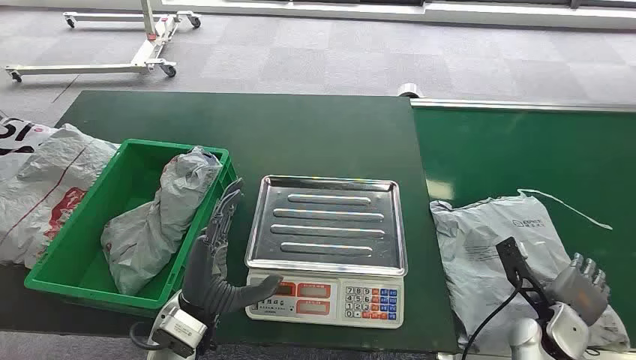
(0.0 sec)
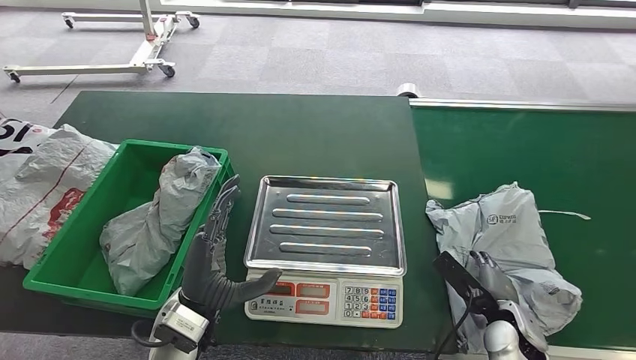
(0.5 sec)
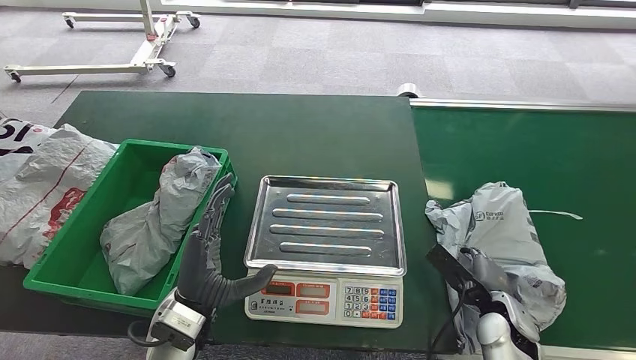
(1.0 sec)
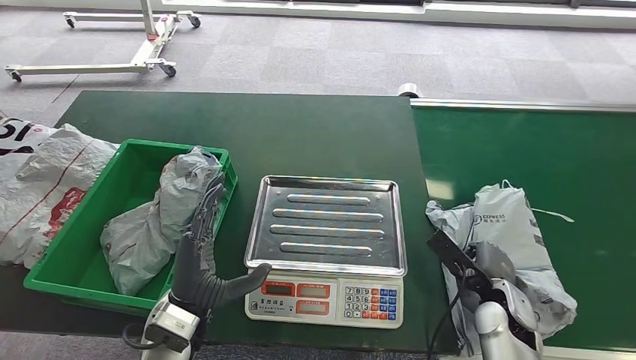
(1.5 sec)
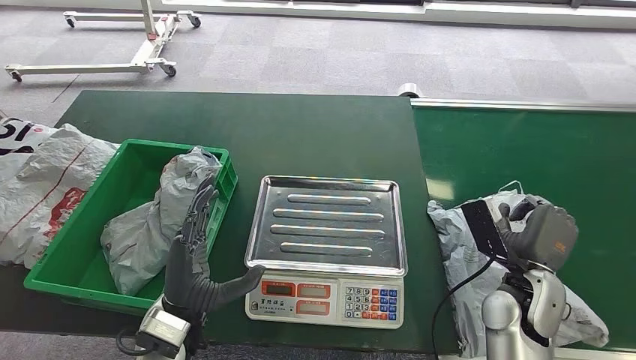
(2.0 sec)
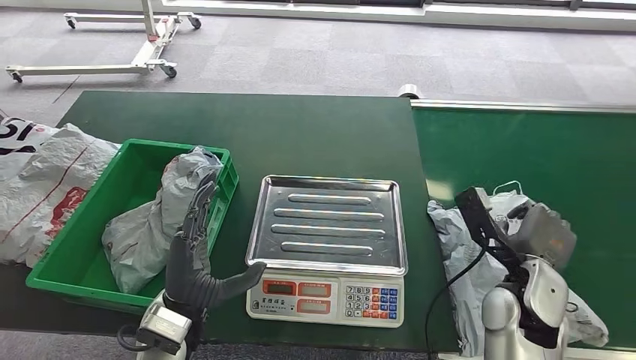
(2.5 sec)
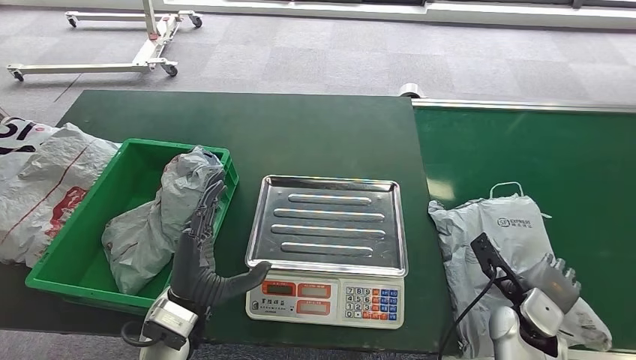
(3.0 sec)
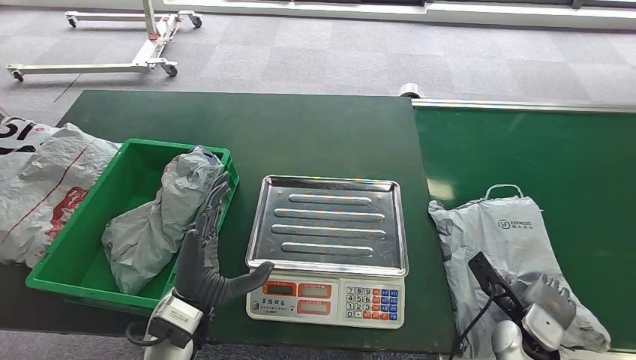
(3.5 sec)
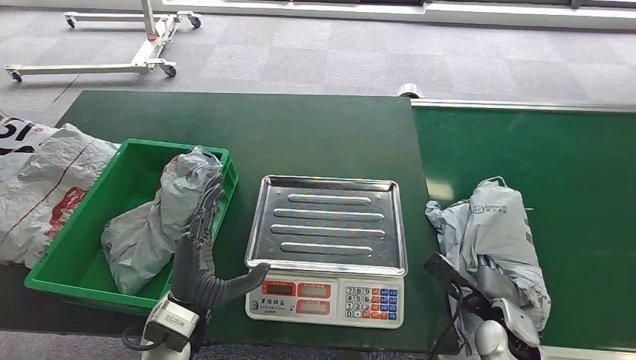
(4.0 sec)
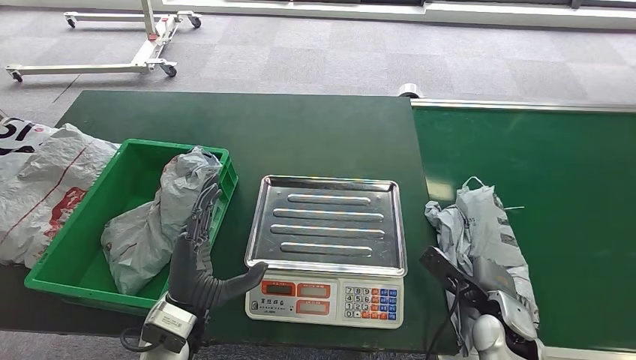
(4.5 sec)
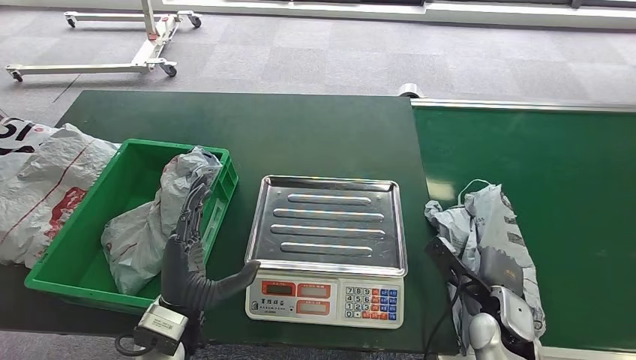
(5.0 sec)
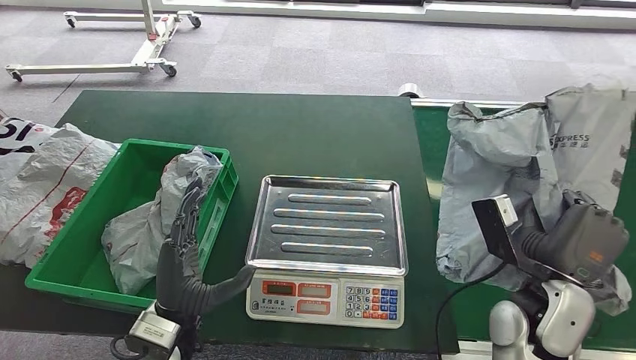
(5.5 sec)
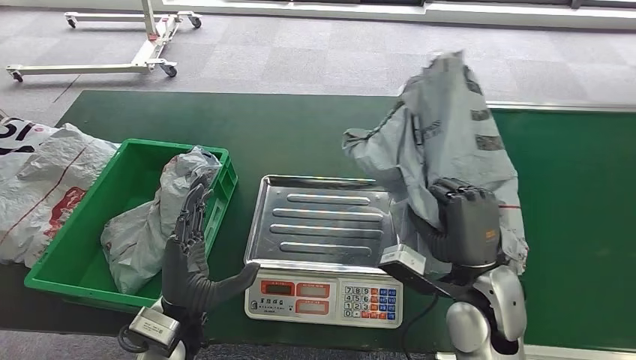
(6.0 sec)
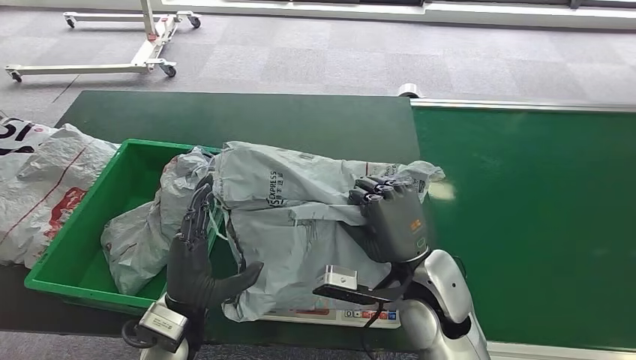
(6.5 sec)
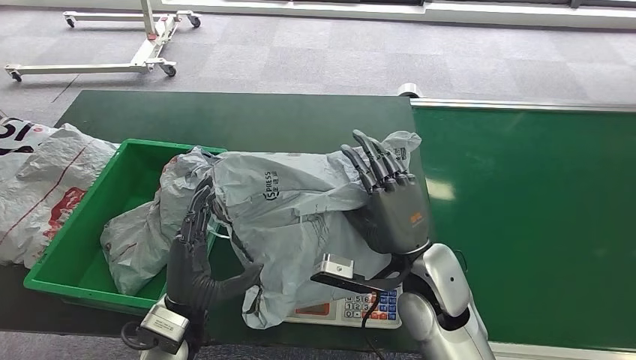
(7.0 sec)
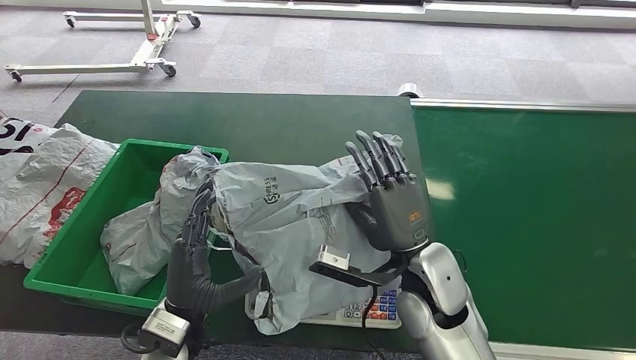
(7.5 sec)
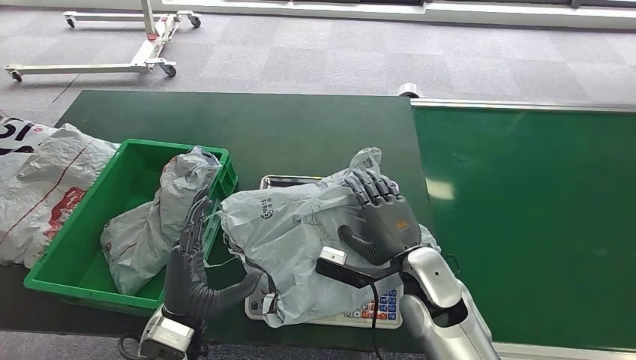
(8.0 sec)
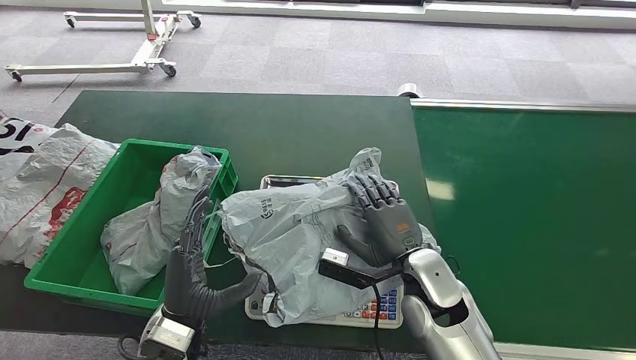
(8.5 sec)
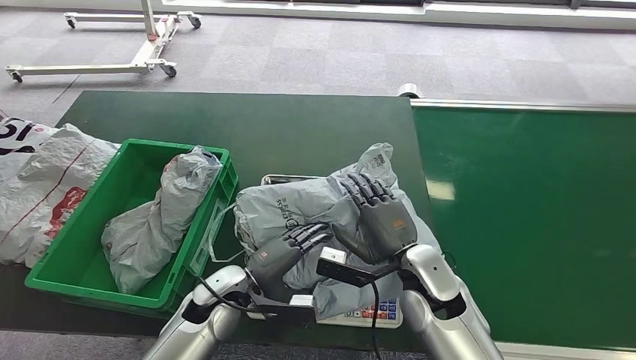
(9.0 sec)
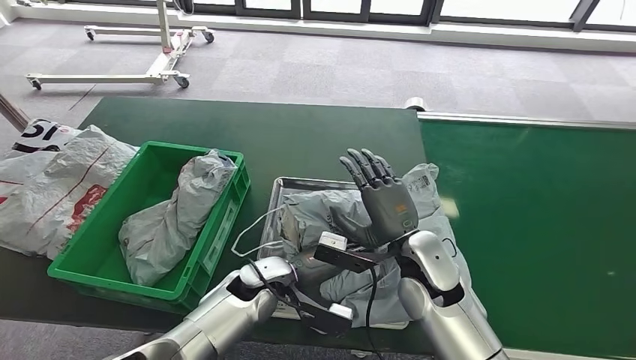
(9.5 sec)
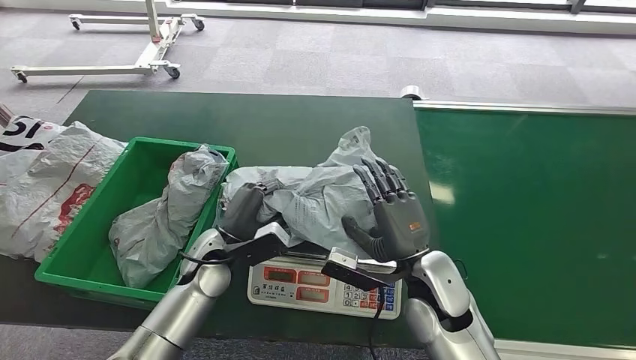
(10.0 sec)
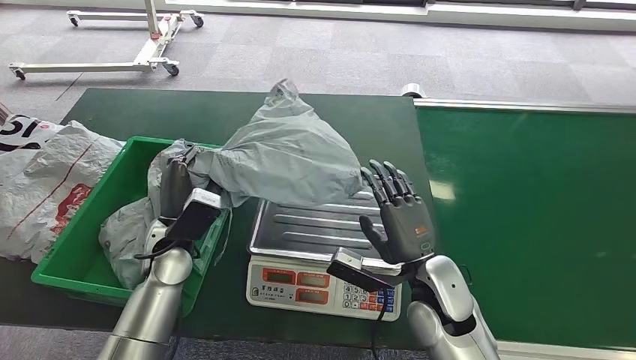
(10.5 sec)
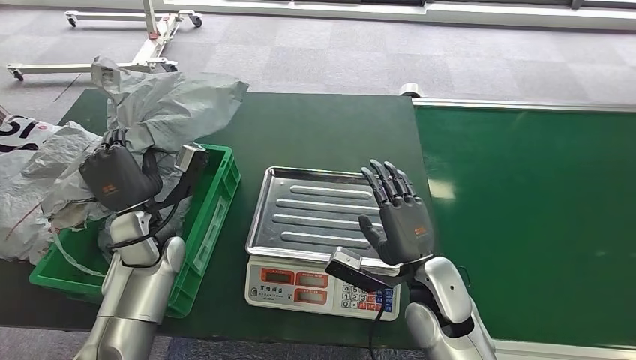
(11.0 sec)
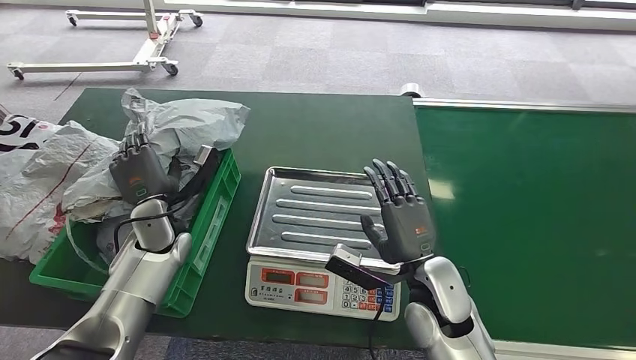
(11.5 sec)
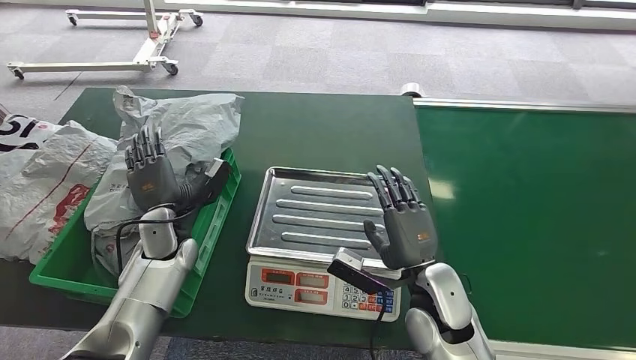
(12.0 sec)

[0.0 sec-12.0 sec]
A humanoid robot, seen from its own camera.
Task of the whole recording: Weigh the package on the weighing device and place it in the left basket.
Step, 0.0 sec to 5.5 sec: Pick up the package from the conveyor belt.
Step, 6.0 sec to 8.0 sec: Place the package onto the inbound machine.
Step, 8.5 sec to 10.0 sec: Pick up the package from the inbound machine.
Step, 10.5 sec to 12.0 sec: Place the package into the parcel locker.
2.0 sec to 4.0 sec: The right hand goes some 10 cm downward.
4.0 sec to 6.0 sec: The right hand goes about 15 cm upward and to the left.
